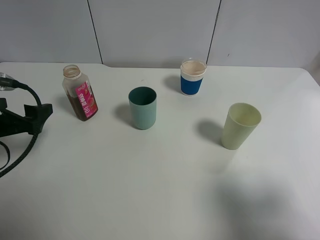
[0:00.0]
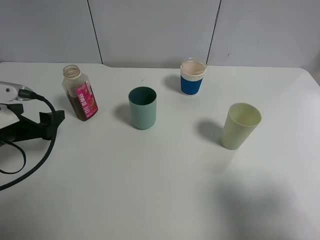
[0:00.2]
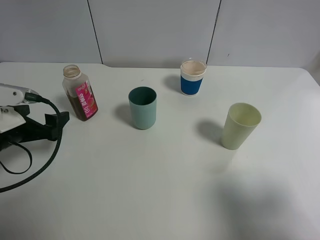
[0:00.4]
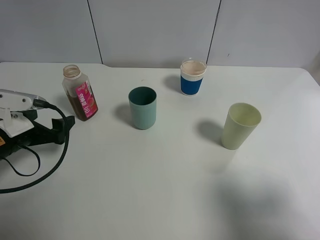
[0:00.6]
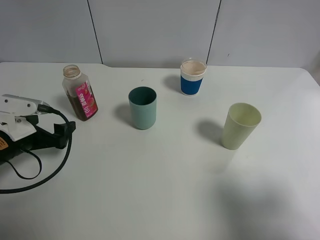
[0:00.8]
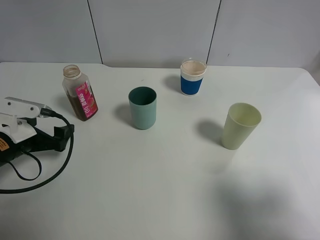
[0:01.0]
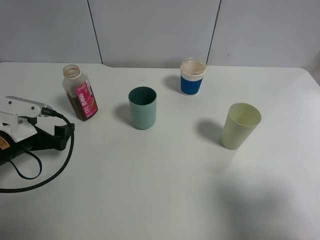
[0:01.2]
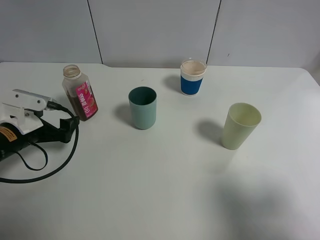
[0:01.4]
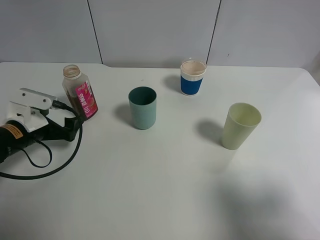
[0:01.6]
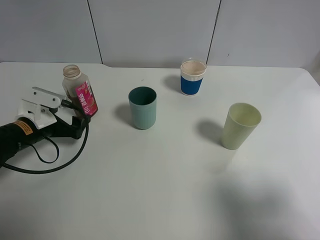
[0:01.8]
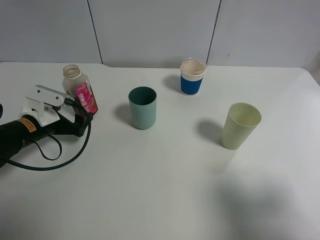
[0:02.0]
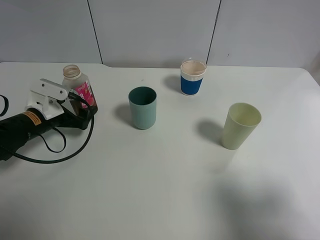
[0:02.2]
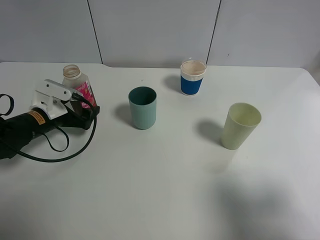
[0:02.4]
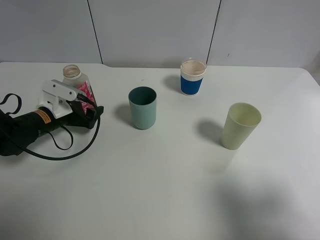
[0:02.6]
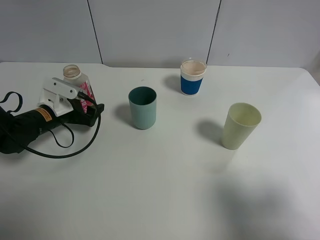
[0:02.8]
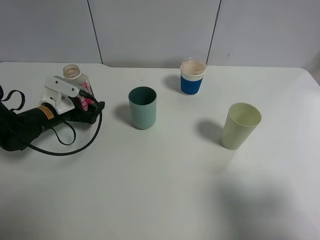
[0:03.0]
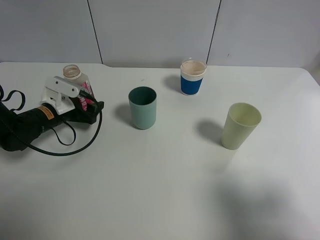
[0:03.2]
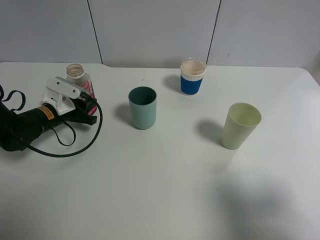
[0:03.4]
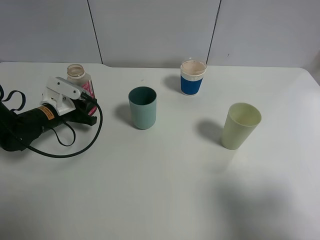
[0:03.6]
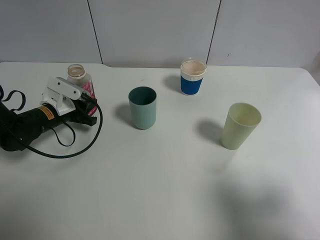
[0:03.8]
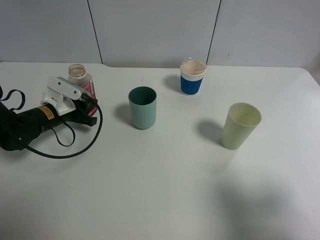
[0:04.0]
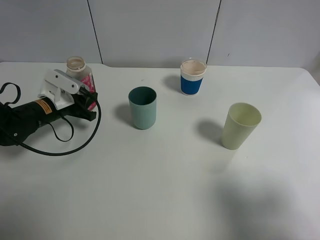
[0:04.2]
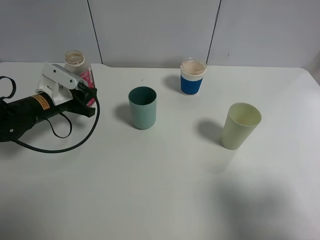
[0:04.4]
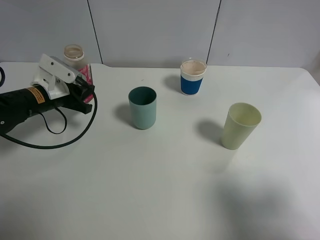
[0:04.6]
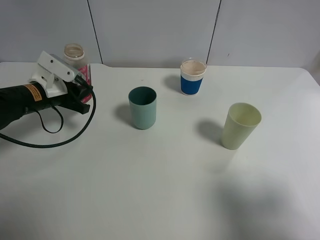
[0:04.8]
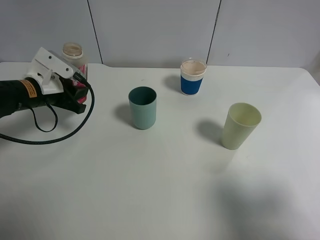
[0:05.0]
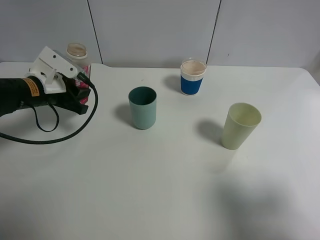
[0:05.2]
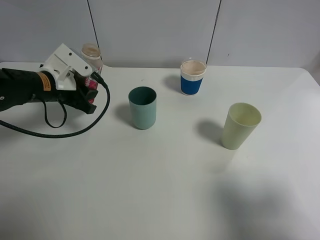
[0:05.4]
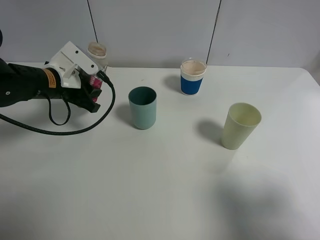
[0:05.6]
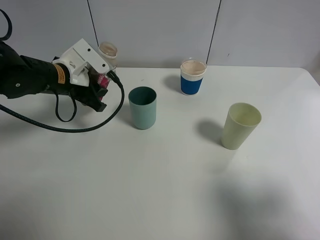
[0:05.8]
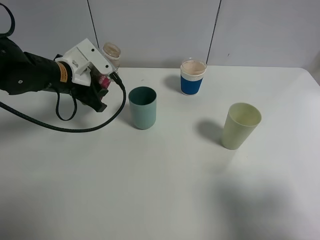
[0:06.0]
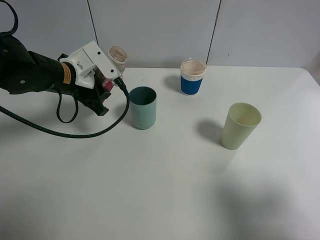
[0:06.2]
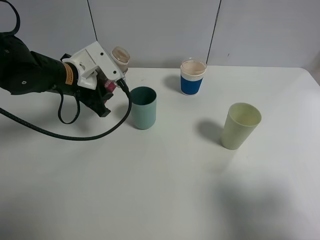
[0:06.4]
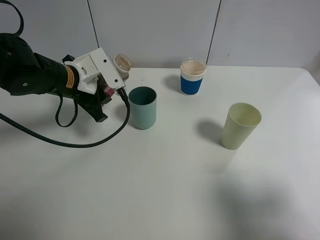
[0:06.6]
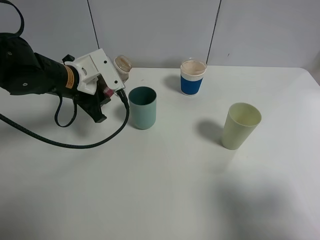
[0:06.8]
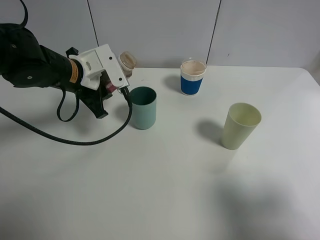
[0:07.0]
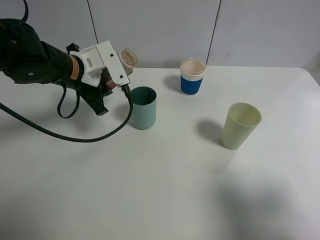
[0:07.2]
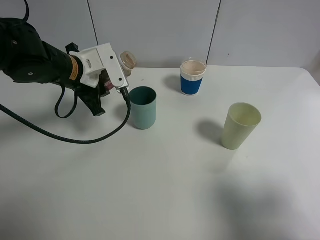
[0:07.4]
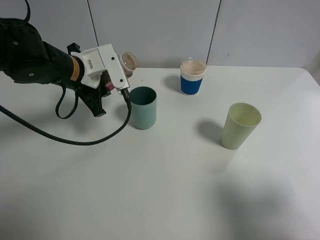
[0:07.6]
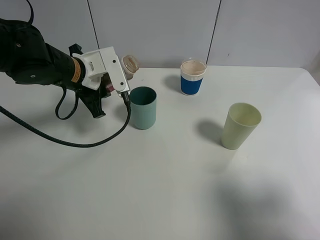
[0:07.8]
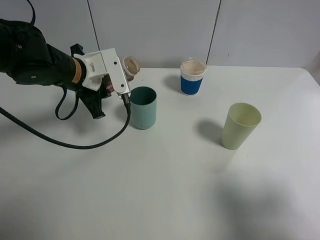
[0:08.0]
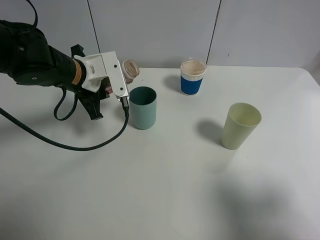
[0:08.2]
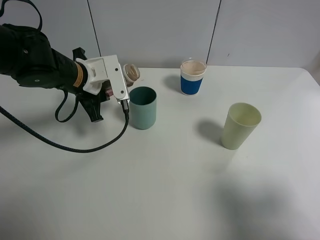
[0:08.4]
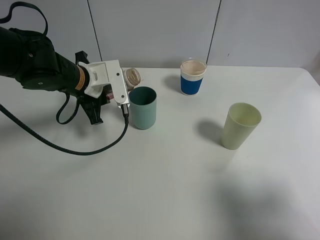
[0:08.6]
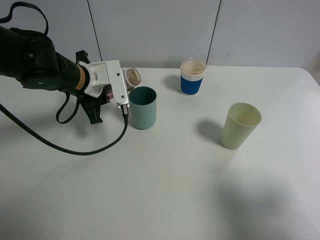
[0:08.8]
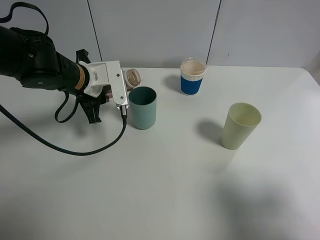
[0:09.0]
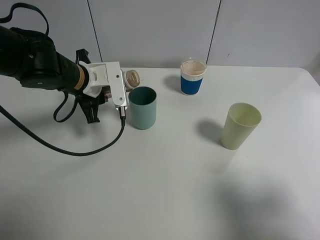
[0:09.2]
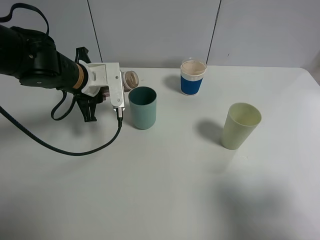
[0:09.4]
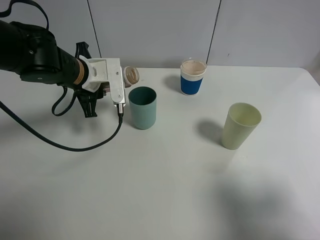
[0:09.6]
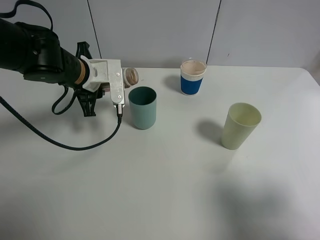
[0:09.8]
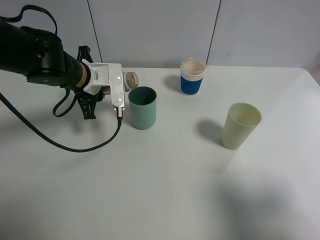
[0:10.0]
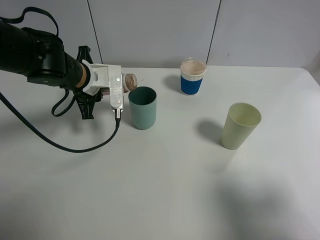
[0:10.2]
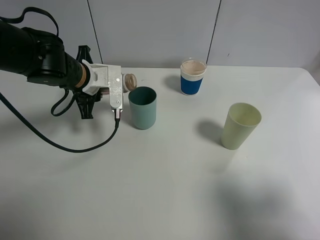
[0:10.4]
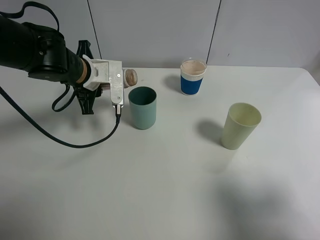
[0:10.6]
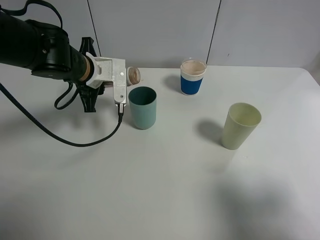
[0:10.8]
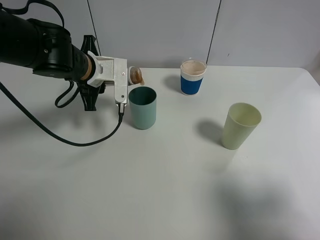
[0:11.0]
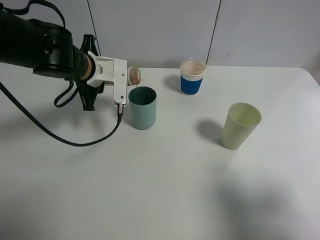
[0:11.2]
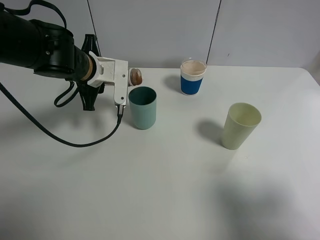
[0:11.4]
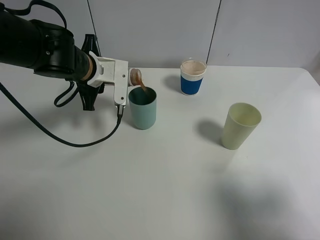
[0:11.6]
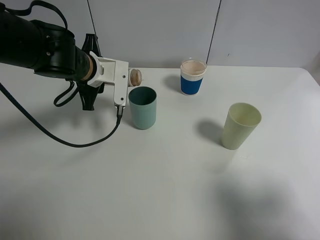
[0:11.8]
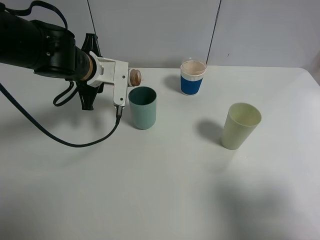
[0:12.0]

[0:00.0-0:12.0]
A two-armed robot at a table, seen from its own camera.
Task of the whole recording: use a gripper to hold the bottle of the drink and pour it into a random cup.
Step, 0:00.0 to 0:04.0: Grasp the cranberry juice bottle with the left gripper.
0:00.0 to 0:01.6: The left gripper moves downward and forward, approximately 10 cm.
0:01.6 to 0:03.0: The left gripper is displaced forward by some 10 cm.
0:03.0 to 0:04.4: The left gripper closes its fingers.
0:04.4 to 0:06.0: The left gripper shifts roughly 10 cm upward and to the right.
0:07.6 to 0:09.0: The grippers make only small movements.
0:09.0 to 0:10.4: There are only small adjustments of the grippers.
0:10.4 to 0:12.0: The grippers move only a little.

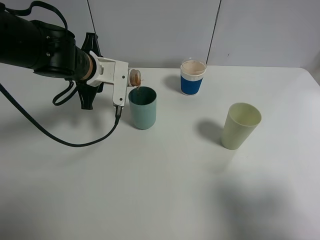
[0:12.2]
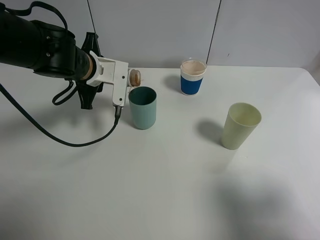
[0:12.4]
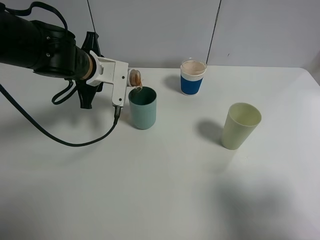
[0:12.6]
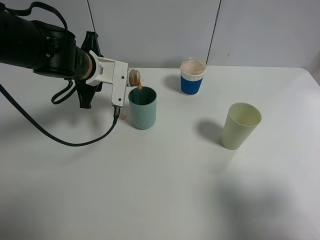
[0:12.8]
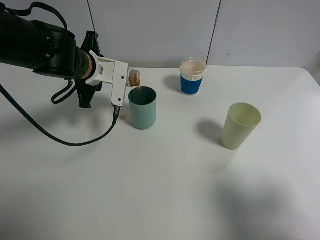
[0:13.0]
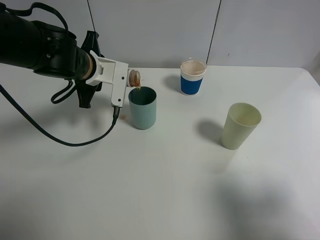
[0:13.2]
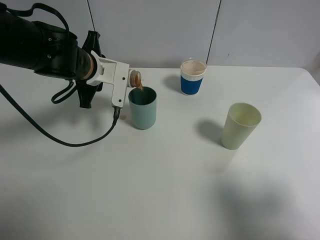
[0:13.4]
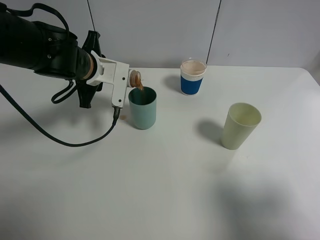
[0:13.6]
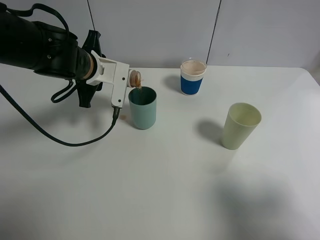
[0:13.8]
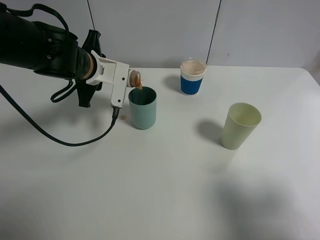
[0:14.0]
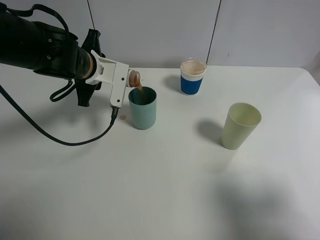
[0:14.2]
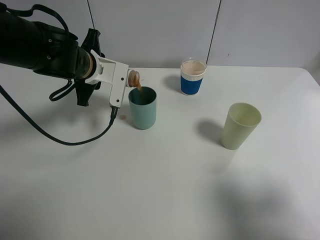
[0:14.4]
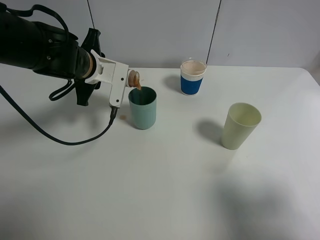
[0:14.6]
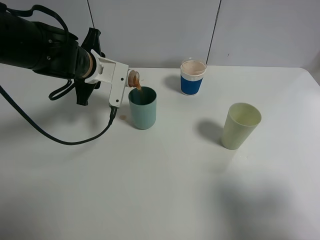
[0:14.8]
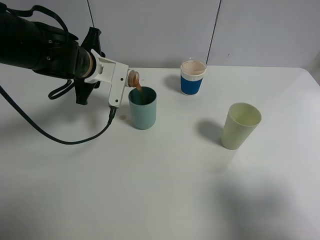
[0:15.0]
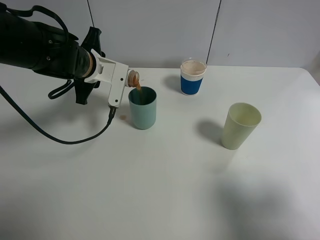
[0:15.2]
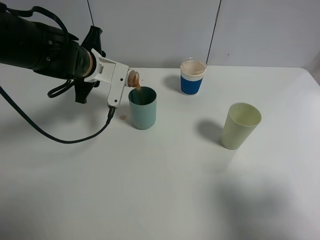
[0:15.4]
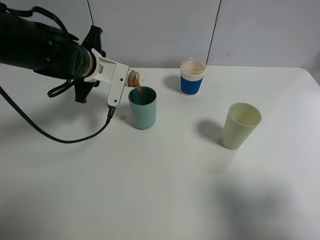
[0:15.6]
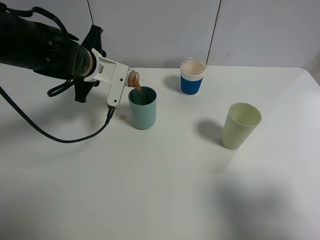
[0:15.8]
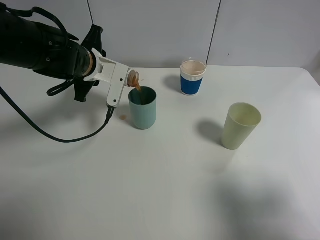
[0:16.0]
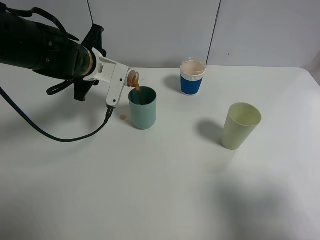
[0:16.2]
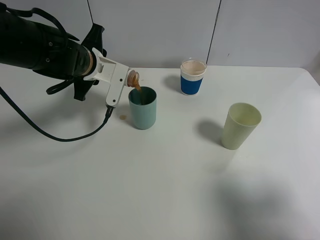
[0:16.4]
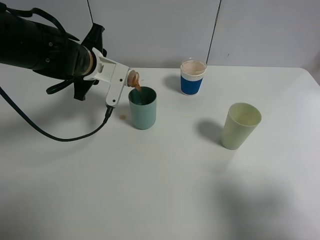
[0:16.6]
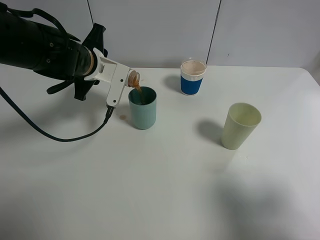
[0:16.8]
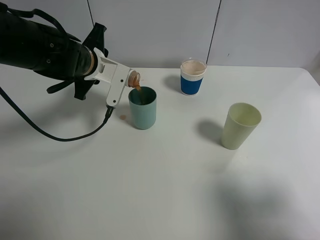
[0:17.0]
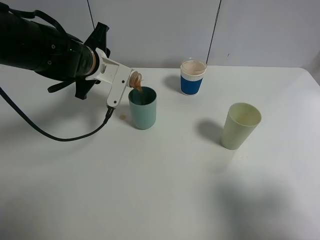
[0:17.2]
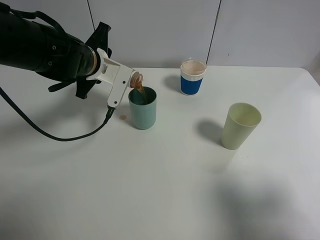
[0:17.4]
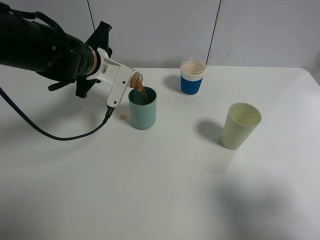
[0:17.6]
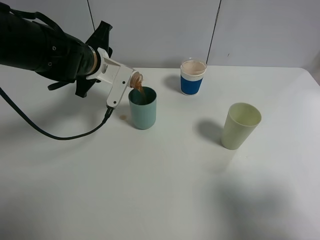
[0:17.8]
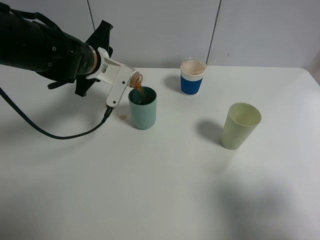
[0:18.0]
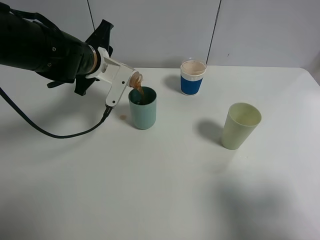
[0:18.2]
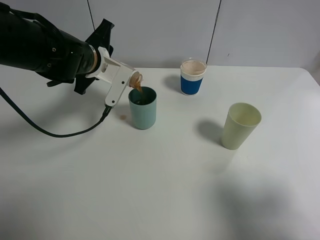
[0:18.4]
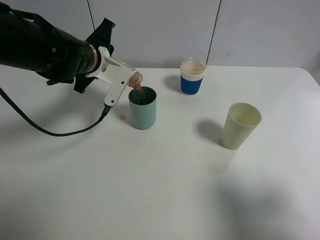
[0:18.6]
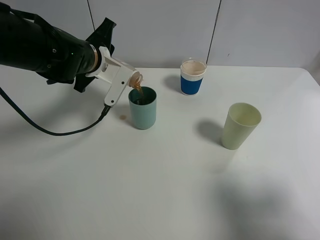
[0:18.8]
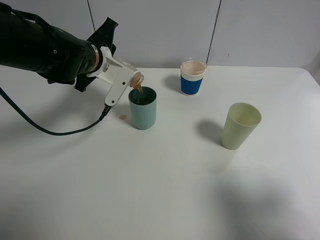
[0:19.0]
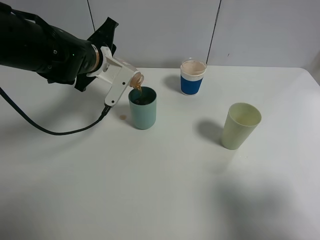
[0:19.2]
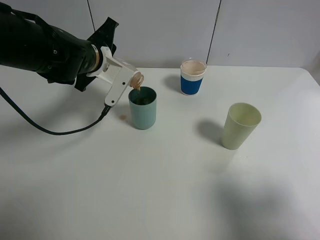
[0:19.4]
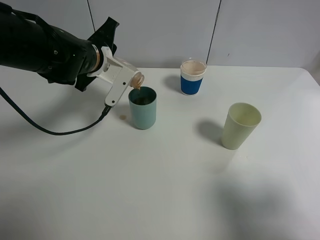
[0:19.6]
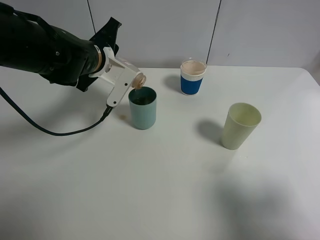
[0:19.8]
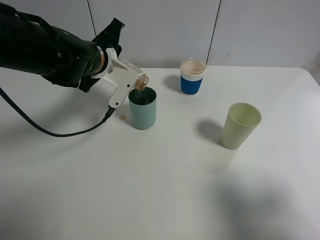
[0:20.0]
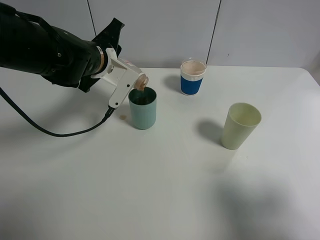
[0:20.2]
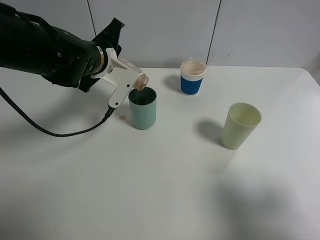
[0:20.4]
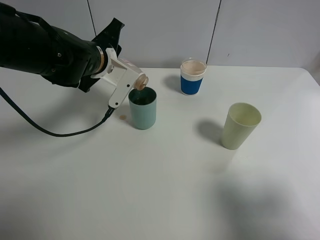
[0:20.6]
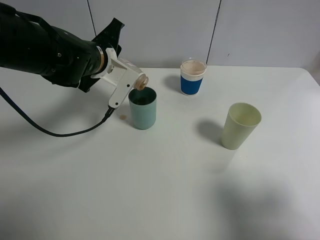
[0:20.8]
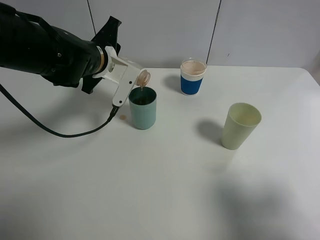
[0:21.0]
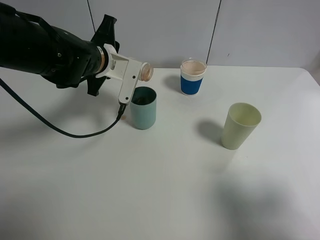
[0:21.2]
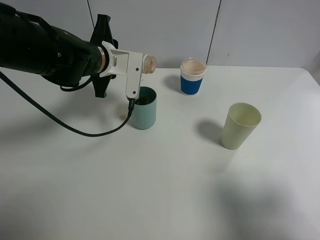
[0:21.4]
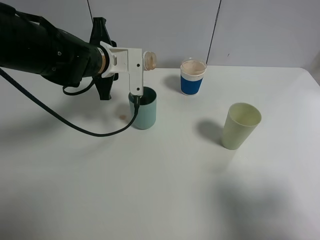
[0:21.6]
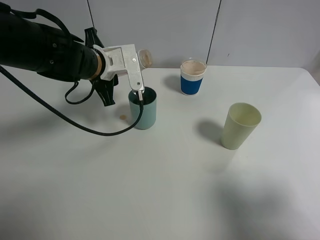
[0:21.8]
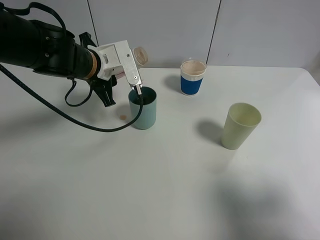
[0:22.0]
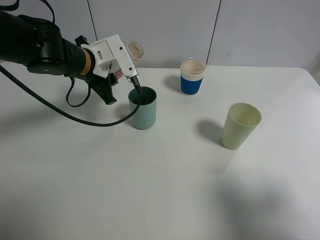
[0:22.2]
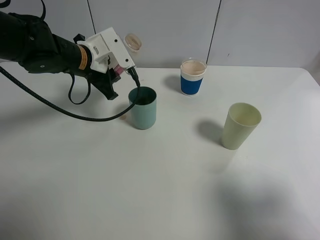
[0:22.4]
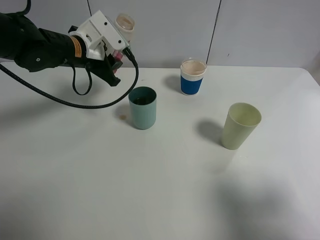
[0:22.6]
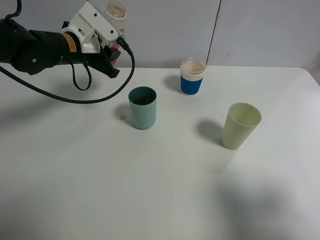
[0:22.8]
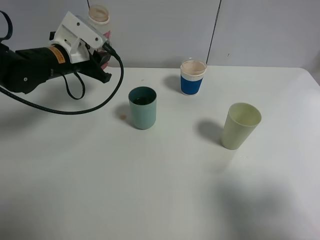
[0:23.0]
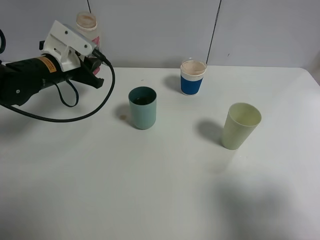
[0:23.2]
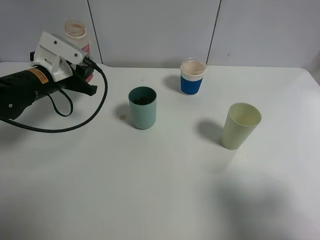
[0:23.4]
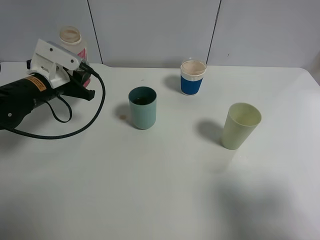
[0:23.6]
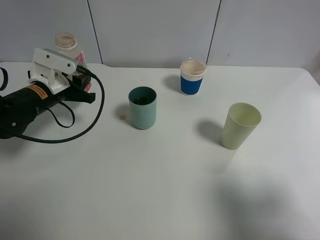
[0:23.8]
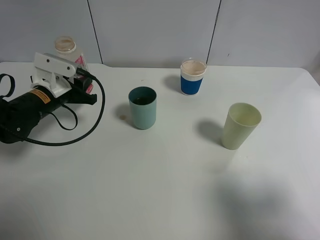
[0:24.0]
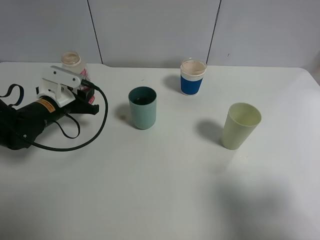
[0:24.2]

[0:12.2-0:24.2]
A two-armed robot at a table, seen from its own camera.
Task of the whole recording: use a gripper to hold the bottle of the drink and pour it into a random cup.
Step, 0:12.2 to 0:21.6: Pour the cranberry juice into the paper cup with the left gripper.
0:12.2 to 0:13.8: The two grippers keep their place.
0:13.8 to 0:16.6: The grippers make only small movements.
0:16.6 to 0:21.2: The grippers move only a little.
0:21.2 to 0:22.6: The left gripper moves to the left, roughly 5 cm.
0:22.6 to 0:24.2: The left gripper shifts some 15 cm downward, to the left and backward.
